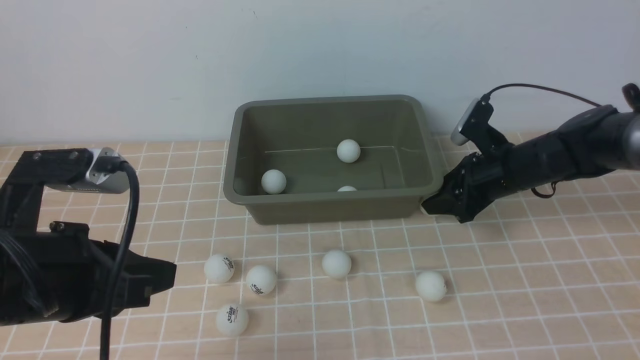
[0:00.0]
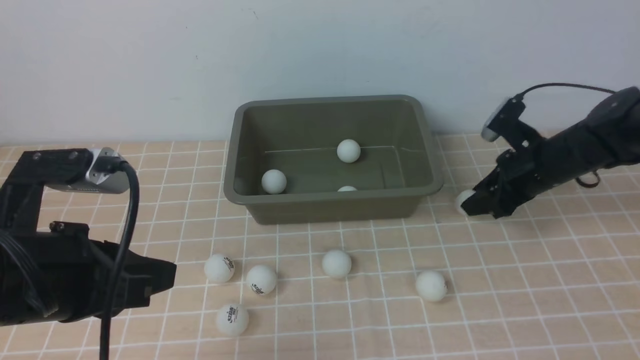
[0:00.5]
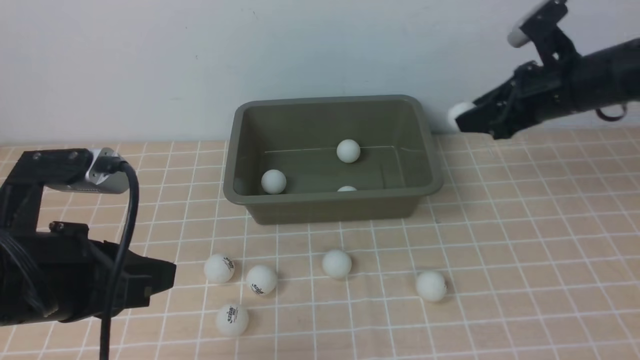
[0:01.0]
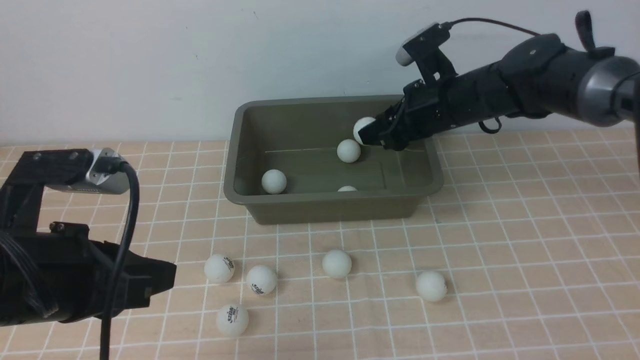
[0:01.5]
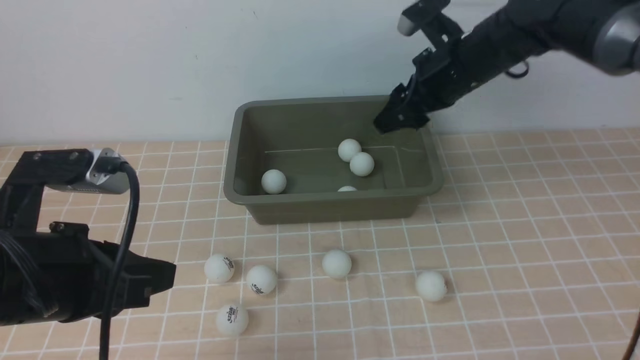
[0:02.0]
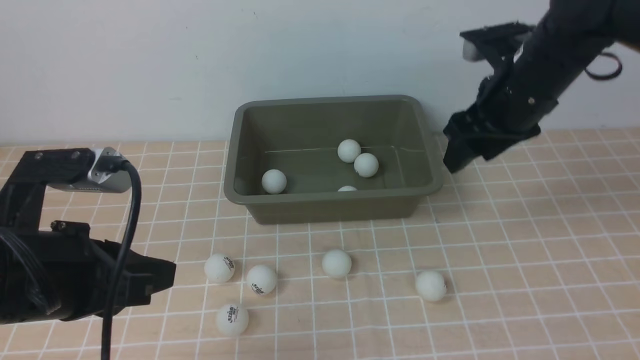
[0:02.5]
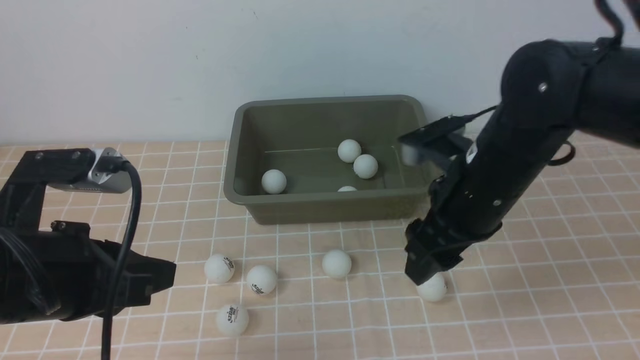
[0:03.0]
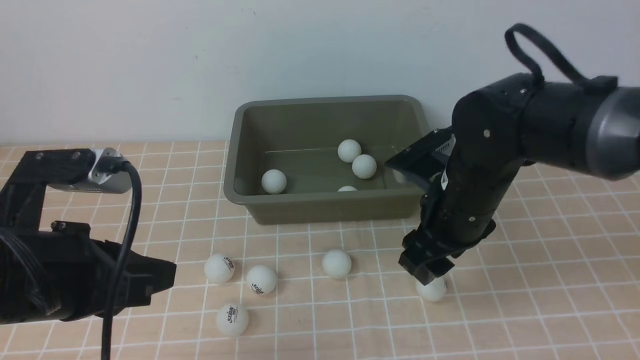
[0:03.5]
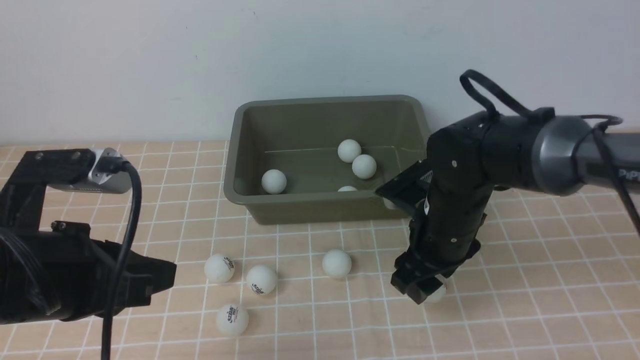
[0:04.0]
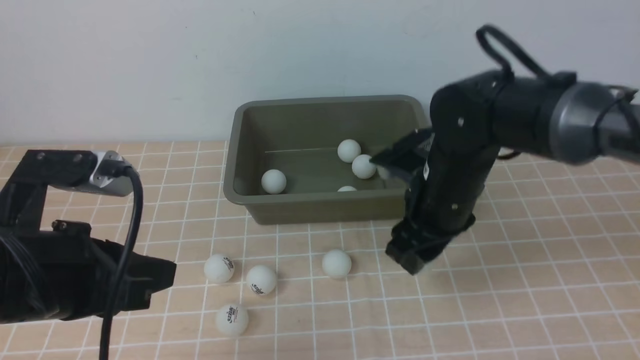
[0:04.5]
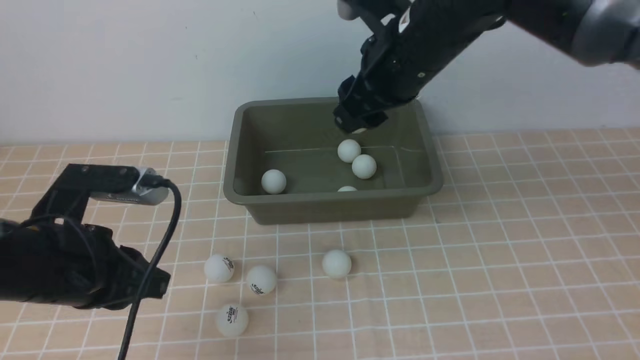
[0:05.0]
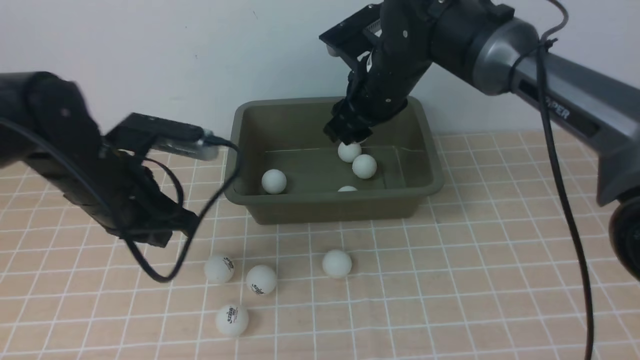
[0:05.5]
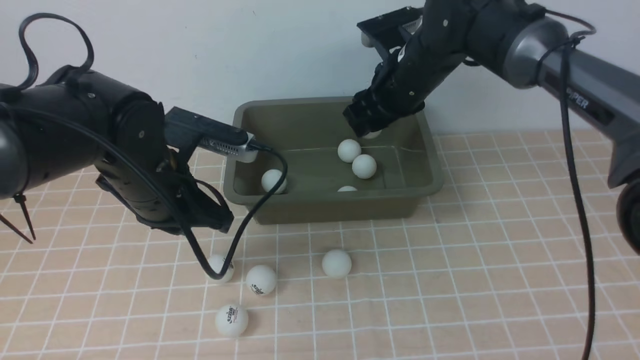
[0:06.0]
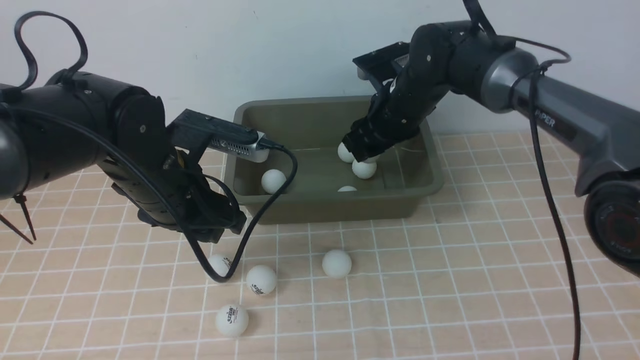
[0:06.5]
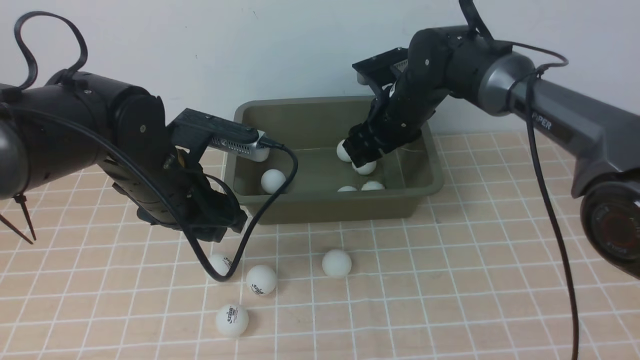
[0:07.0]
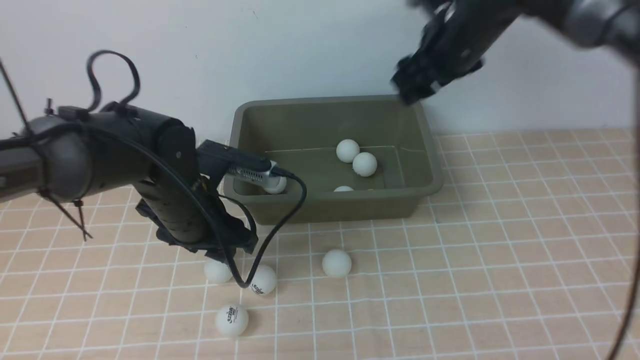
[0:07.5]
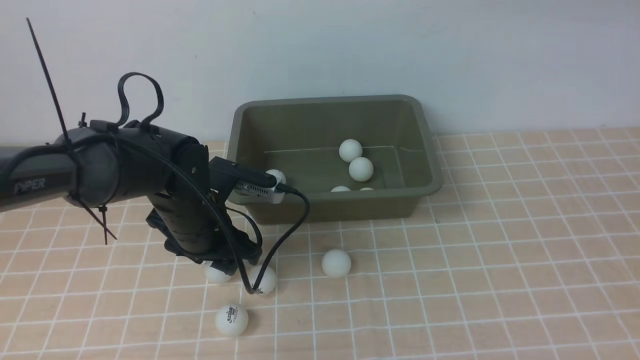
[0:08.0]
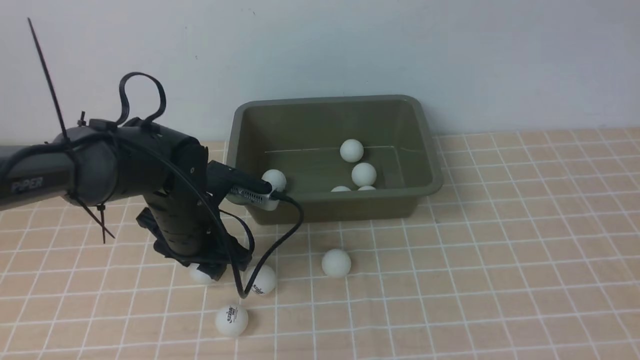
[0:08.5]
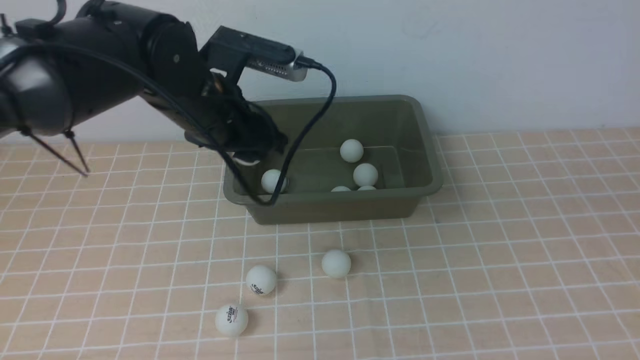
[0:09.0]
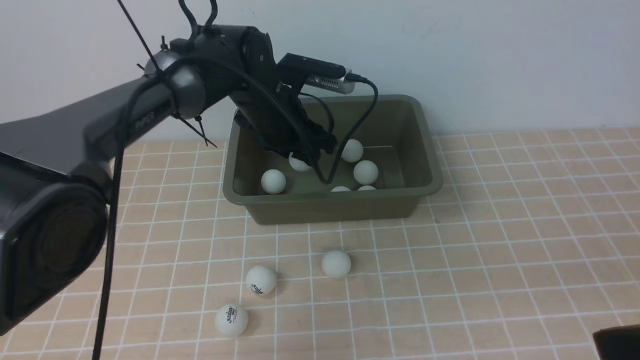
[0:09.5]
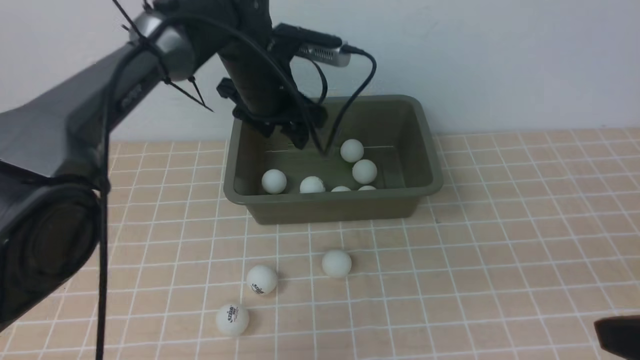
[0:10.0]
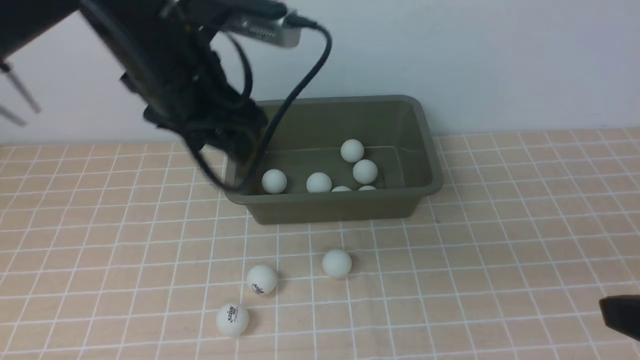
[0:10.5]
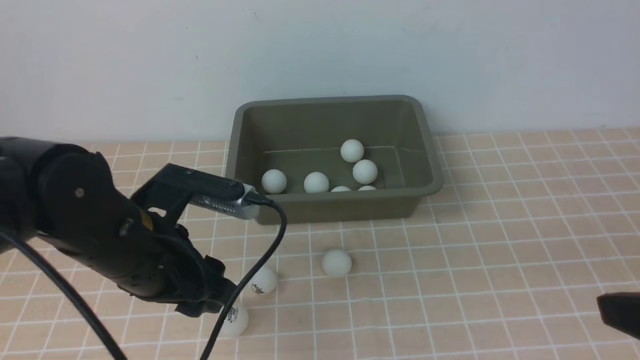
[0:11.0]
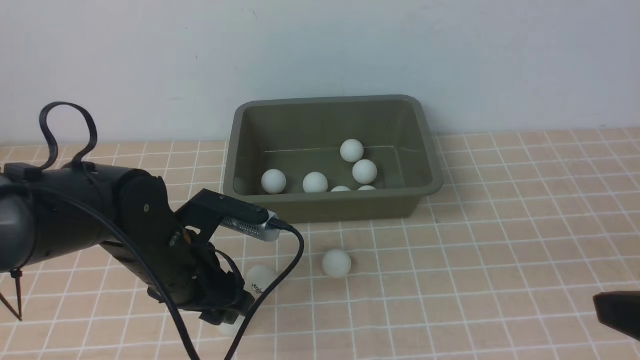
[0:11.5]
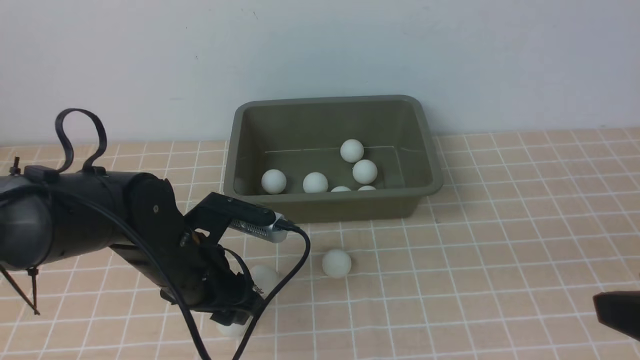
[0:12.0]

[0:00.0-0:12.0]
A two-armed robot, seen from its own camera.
Step, 0:01.0 to 0:01.5: use the right arm to put the table tennis ball into the box.
Step, 0:02.0 to 0:04.5: use the right arm to clamp the table tennis ball closest to it.
Step, 0:05.0 to 0:07.0: use the right arm to put the table tennis ball into the box.
Step, 0:07.5 to 0:09.0: use the left arm to clamp the table tennis ball closest to it.
Step, 0:09.5 to 0:10.0: use the left arm to put the table tennis ball into the box.
0:00.0 to 0:02.0: The right gripper moves upward and to the left, about 15 cm.
0:02.0 to 0:04.0: The right gripper shifts some 15 cm backward and downward.
0:04.0 to 0:06.0: The right gripper is displaced forward and upward by some 15 cm; the left gripper is displaced forward by about 15 cm.
0:06.0 to 0:08.0: The right gripper shifts about 30 cm upward, to the right and backward. The left gripper shifts about 10 cm downward, and opens up.
0:08.0 to 0:10.0: The left gripper heads forward, upward and to the right, covering roughly 15 cm. The right gripper travels backward and downward by some 30 cm.
0:10.0 to 0:12.0: The left gripper shifts about 20 cm backward and downward.

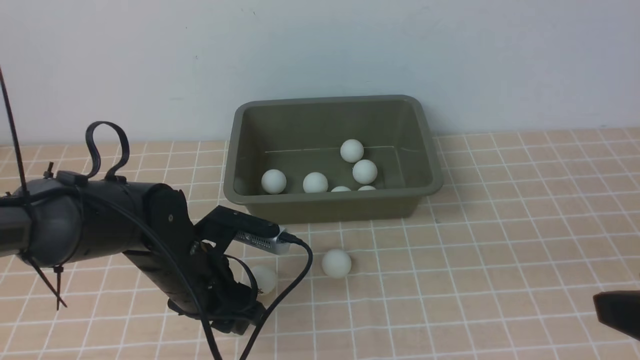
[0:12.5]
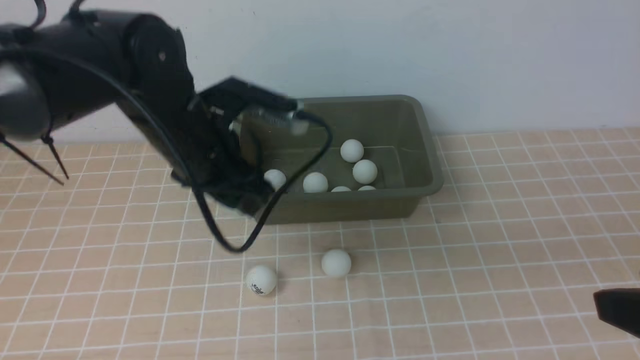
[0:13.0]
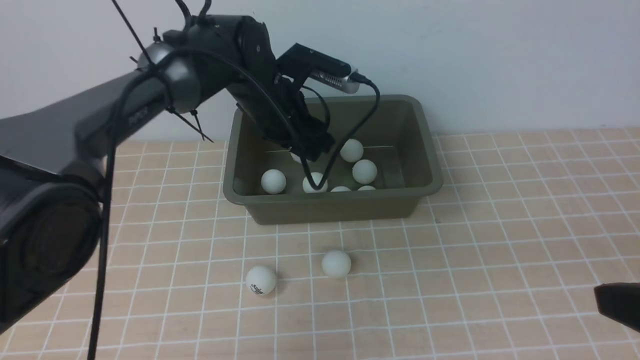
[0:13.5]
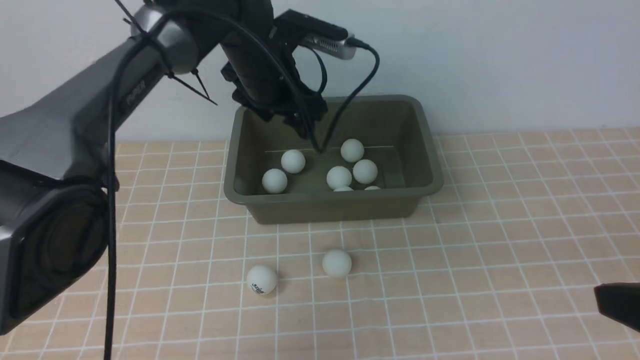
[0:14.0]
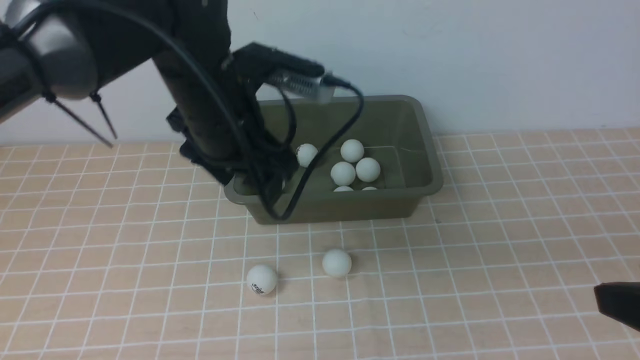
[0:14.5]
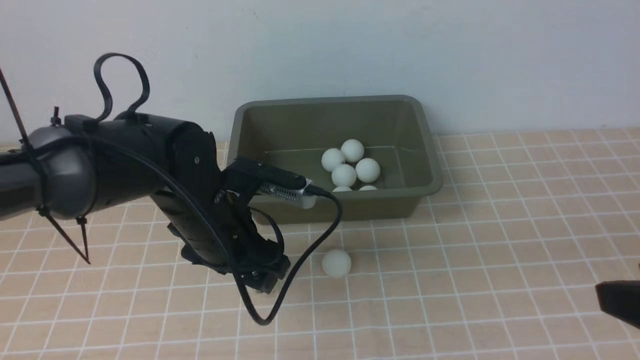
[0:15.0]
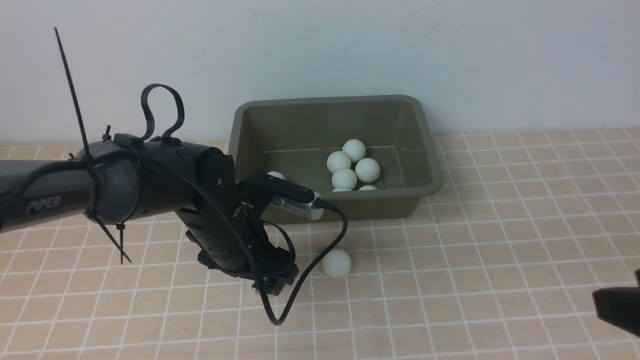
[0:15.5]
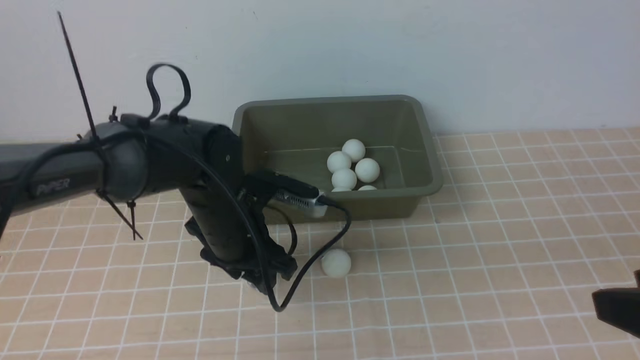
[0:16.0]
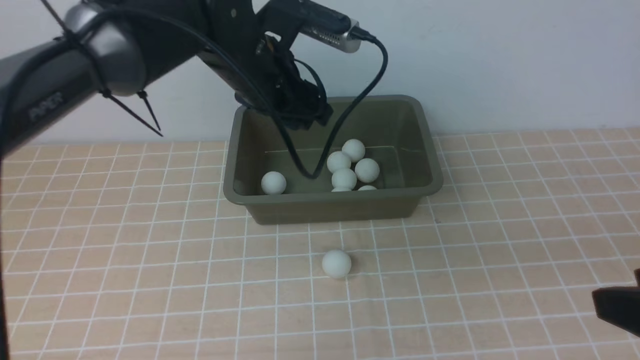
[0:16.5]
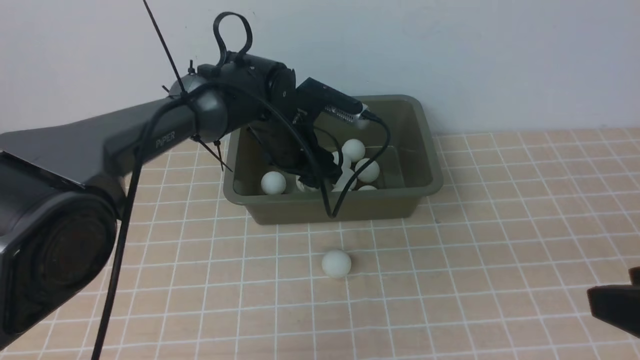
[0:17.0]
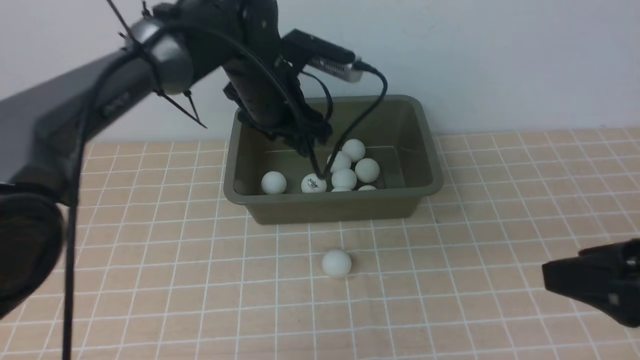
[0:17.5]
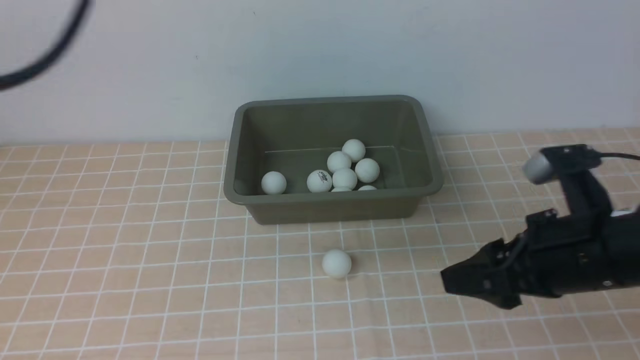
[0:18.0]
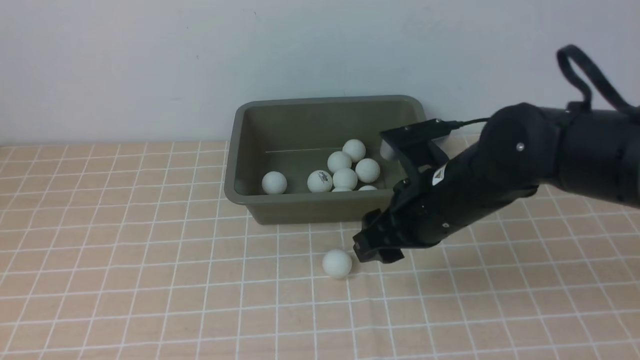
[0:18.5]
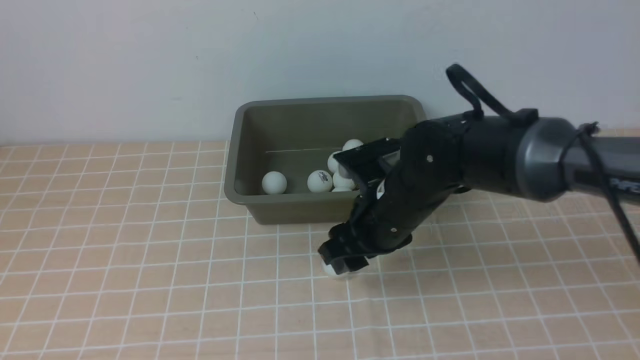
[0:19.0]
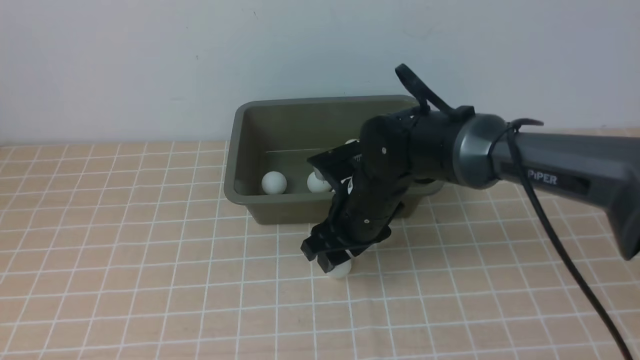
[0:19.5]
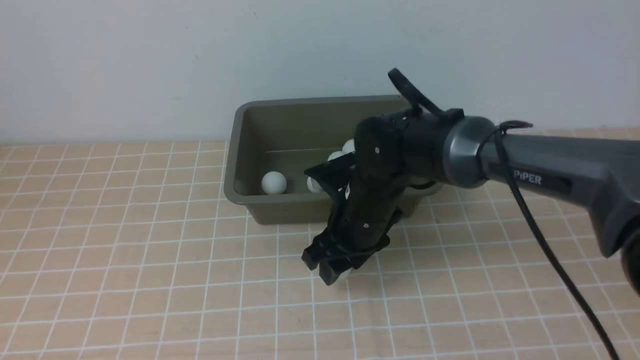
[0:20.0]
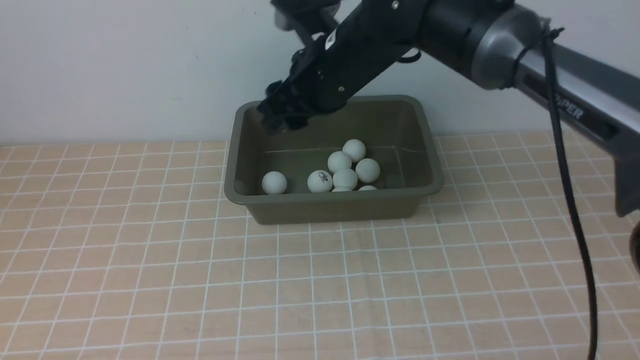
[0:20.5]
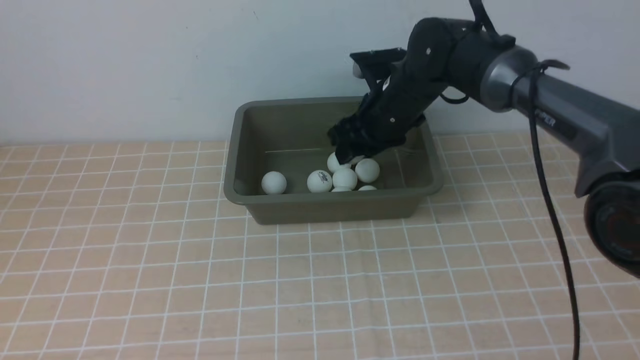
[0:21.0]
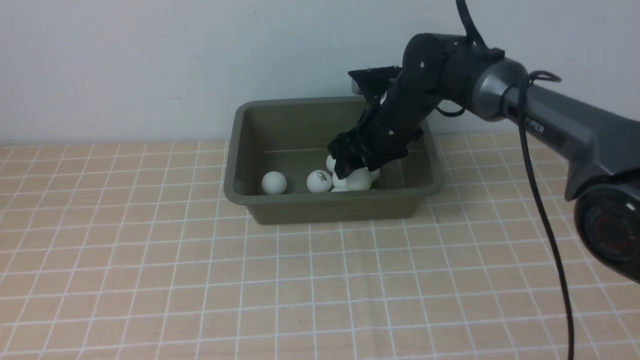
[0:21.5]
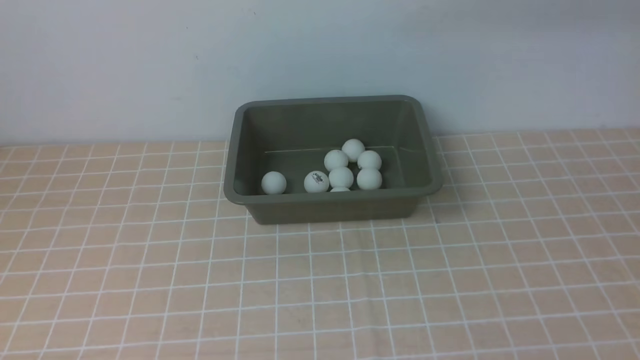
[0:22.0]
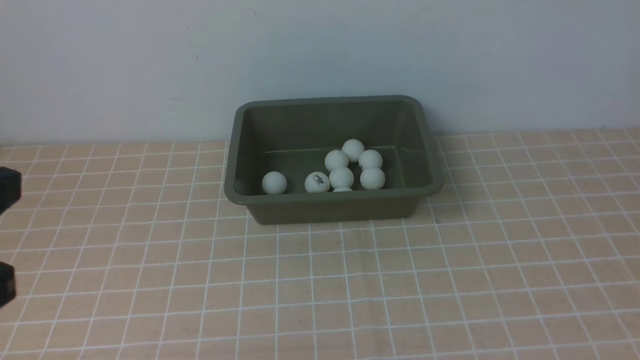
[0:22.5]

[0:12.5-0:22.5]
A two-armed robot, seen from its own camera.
Step, 0:13.5 to 0:14.0: use the left arm to put the table tennis ball into the box.
Step, 0:14.5 to 0:16.0: use the left arm to clamp the table tennis ball closest to it.
Step, 0:16.5 to 0:17.5: use the left arm to put the table tennis ball into the box.
Step, 0:18.0 to 0:20.0: use the right arm to clamp the table tennis ball closest to it.
Step, 0:21.0 to 0:22.0: use the right arm to put the table tennis ball into the box.
0:12.5 to 0:14.5: The left gripper goes about 20 cm upward and forward.
0:14.5 to 0:16.5: The left gripper goes downward and returns, roughly 15 cm each way.
0:16.5 to 0:18.5: The left gripper goes about 50 cm backward, upward and to the left, and closes; the right gripper heads forward, to the left and downward, covering roughly 25 cm.
0:18.5 to 0:20.5: The right gripper shifts some 15 cm forward and to the left.
0:20.5 to 0:22.5: The right gripper travels to the right, backward and upward by roughly 40 cm, and closes its fingers, while the left gripper heads downward and forward, covering approximately 10 cm.
